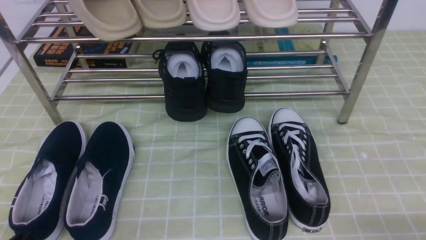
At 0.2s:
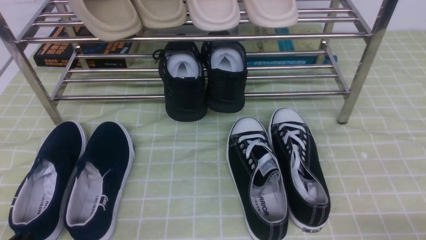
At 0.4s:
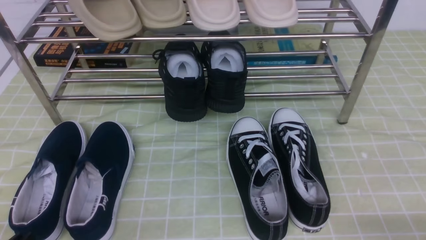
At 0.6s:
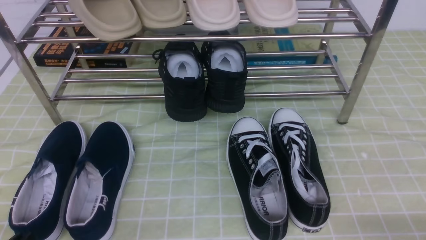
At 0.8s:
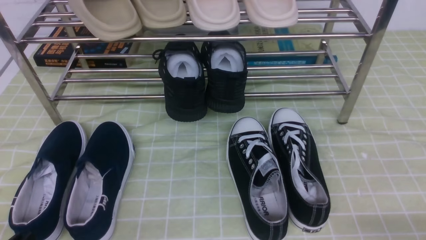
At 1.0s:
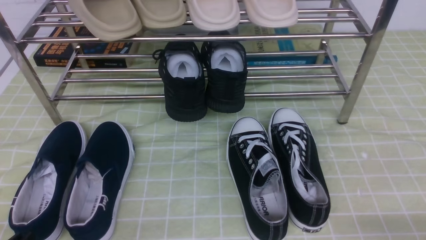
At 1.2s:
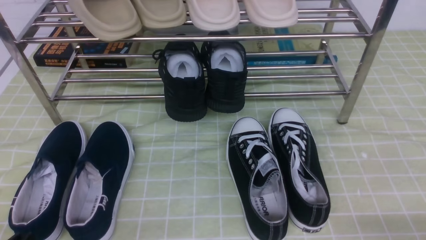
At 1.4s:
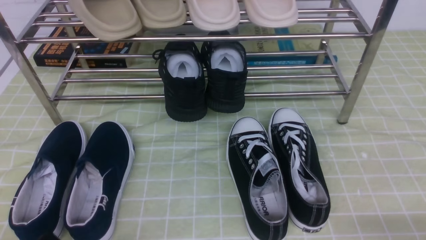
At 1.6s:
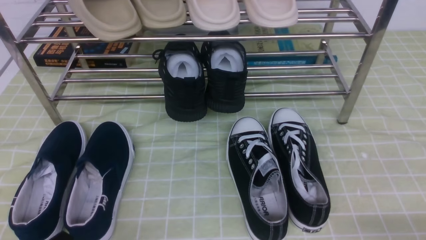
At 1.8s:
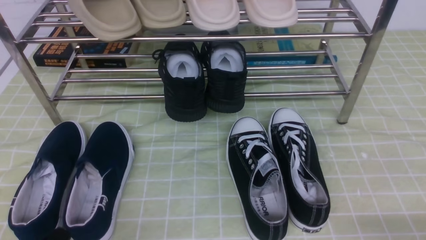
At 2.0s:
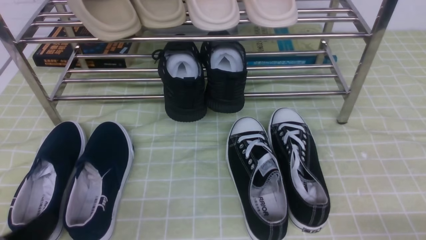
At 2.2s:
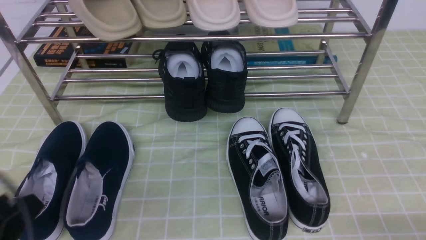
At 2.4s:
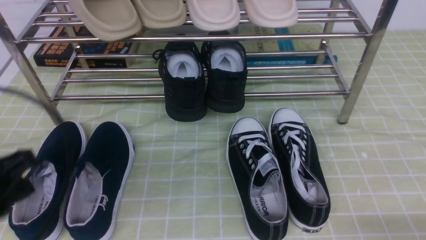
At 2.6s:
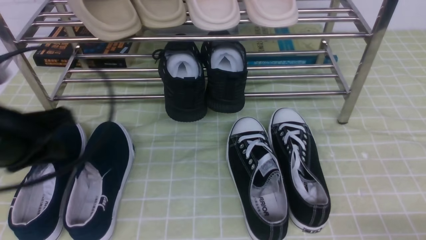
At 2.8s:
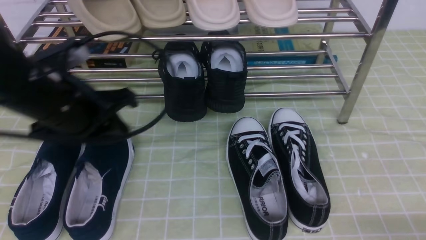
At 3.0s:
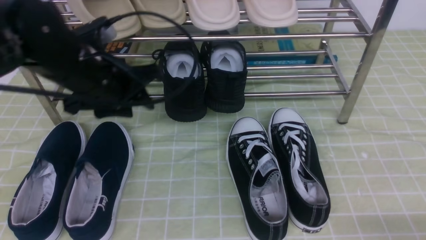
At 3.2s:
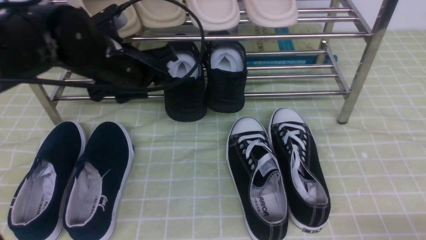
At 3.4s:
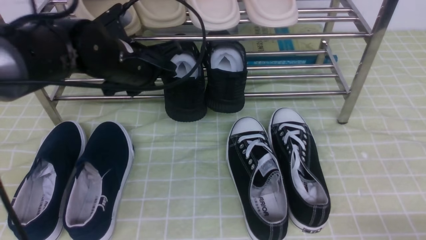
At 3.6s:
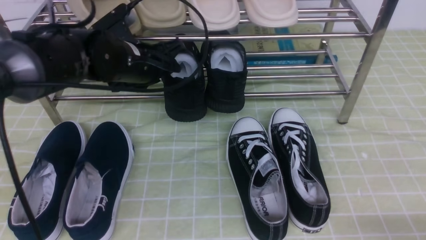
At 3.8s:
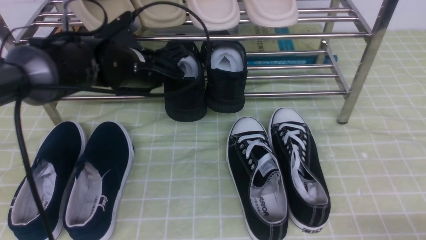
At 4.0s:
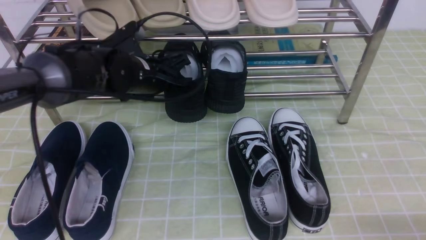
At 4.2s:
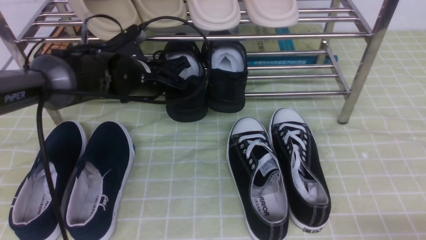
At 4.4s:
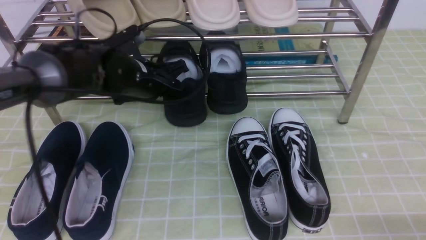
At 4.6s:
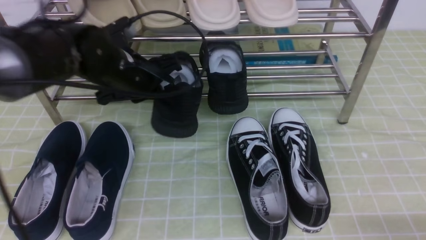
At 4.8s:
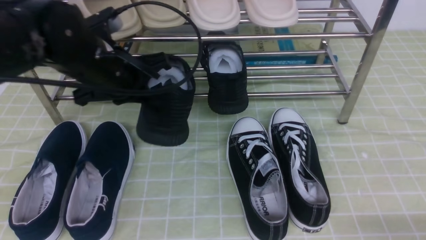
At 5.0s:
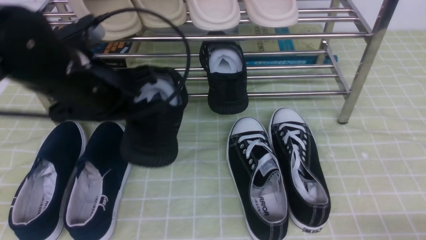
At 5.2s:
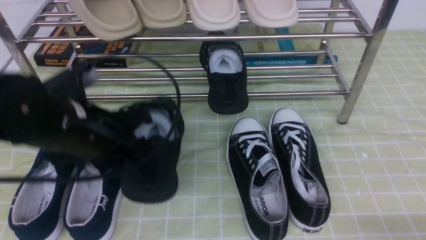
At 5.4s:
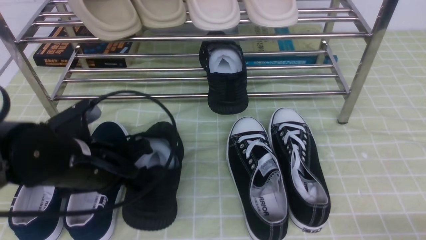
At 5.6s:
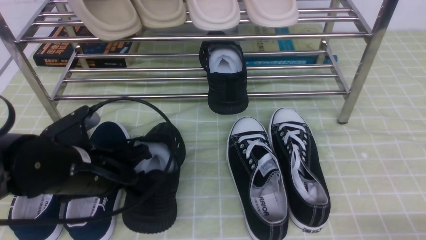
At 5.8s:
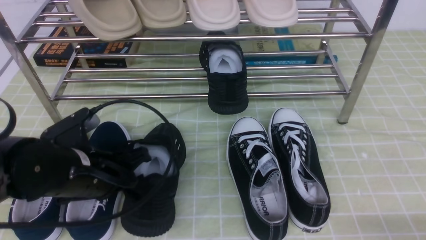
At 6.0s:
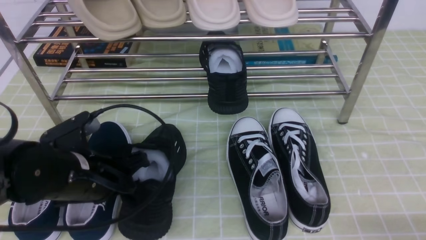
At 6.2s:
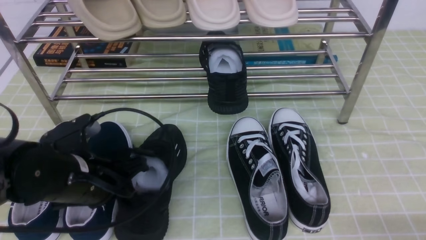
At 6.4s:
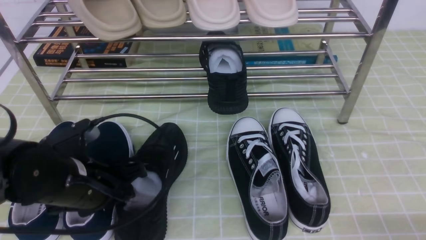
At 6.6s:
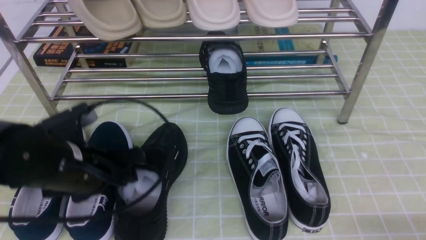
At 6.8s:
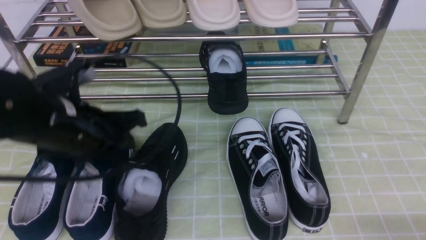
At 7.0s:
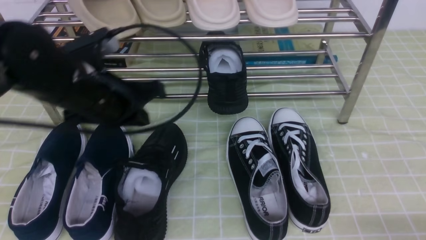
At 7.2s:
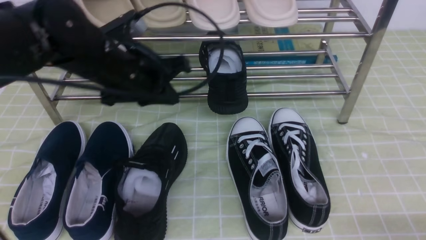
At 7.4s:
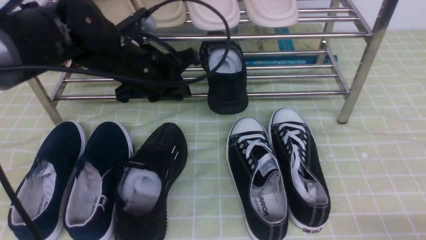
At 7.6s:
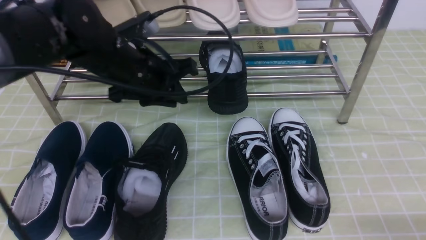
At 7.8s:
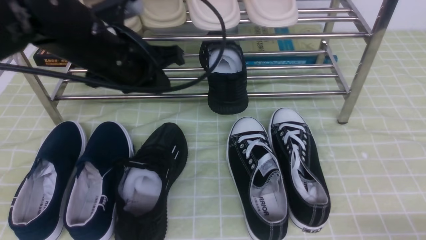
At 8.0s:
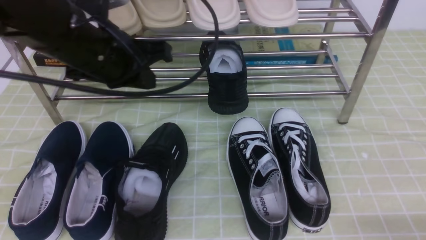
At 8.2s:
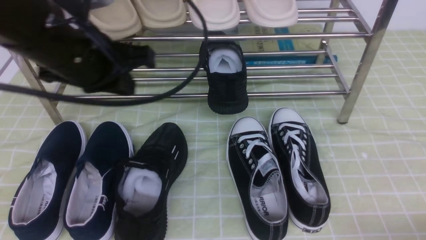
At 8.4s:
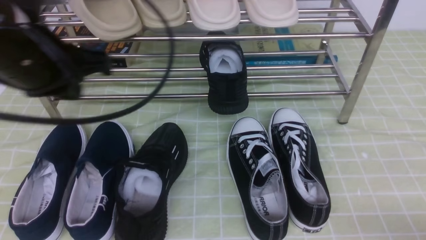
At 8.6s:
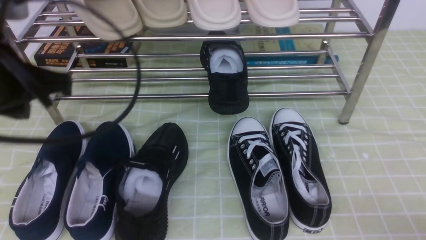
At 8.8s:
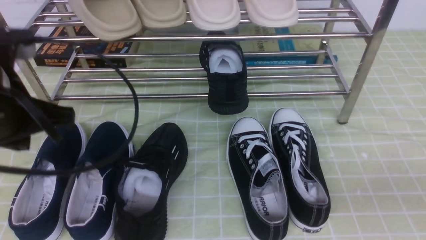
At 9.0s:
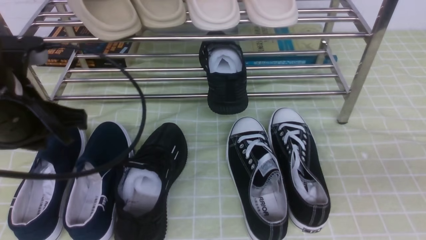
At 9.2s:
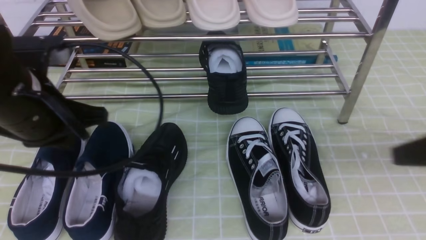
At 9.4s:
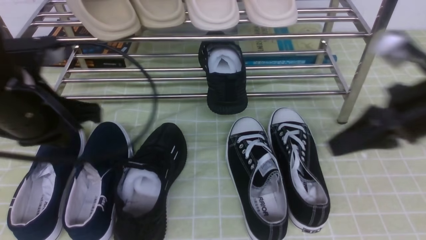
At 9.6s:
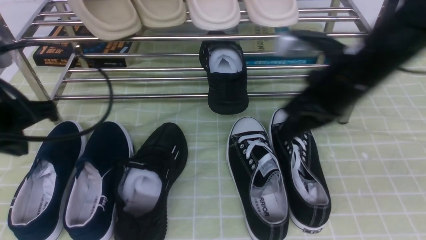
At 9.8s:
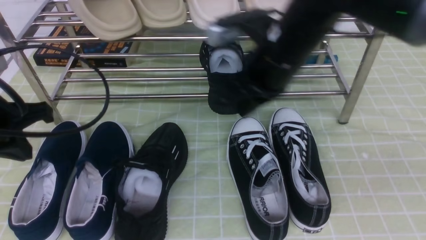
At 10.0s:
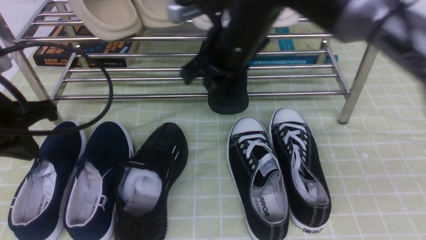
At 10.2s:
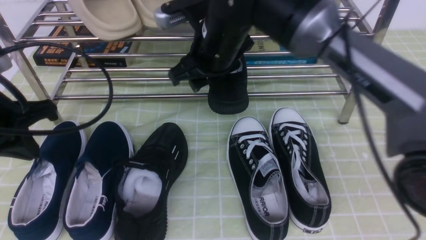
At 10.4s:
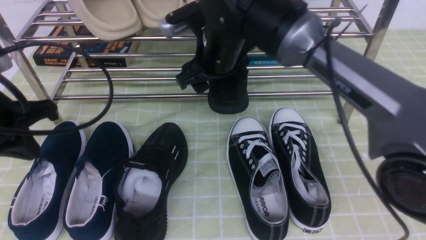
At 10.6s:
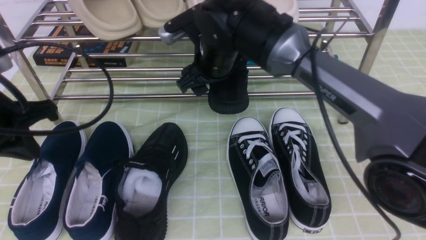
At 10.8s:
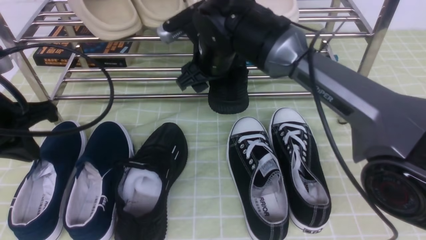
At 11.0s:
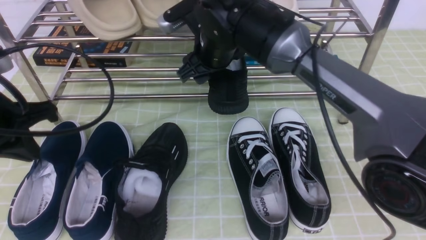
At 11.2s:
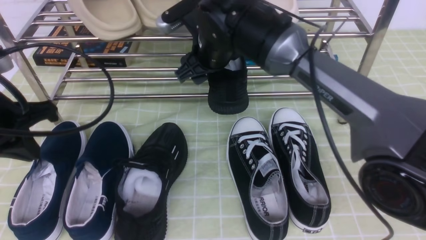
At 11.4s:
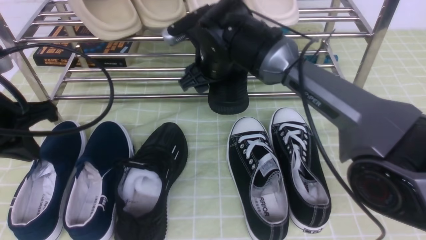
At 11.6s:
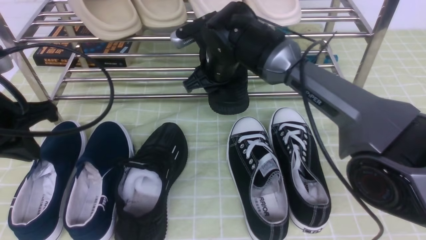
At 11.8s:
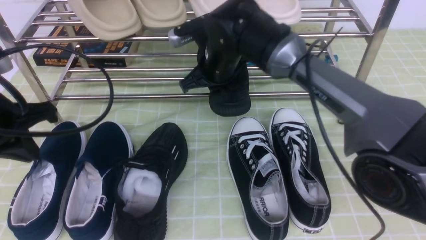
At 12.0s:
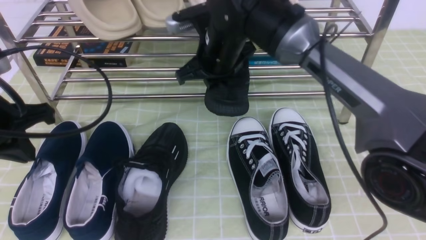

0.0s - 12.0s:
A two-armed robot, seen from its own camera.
Step, 0.0s - 4.0s: use the left arm to clamp a shoe in the middle of the shoe rack.
Step, 4.2s - 6.8s: Use your left arm to remove the clamped shoe from the shoe rack and put it down.
Step, 7.0s - 11.8s: use the right arm to clamp a shoe in the middle of the shoe rack.
1.6s - 3.0s: The left gripper shifts roughly 30 cm forward and upward, and opens.
3.0s - 4.4s: The left gripper shifts some 10 cm forward and downward, and closes its fingers.
4.4s - 6.0s: The left gripper moves backward, about 15 cm.
6.0s - 7.6s: The left gripper heads upward, forward and to the right, covering about 15 cm, and opens and closes again.
7.6s - 9.0s: The right gripper travels upward by approximately 15 cm, and closes its fingers. Meanwhile the left gripper goes approximately 15 cm backward and to the left.
9.0s - 10.4s: The right gripper heads to the left and forward, covering some 40 cm, and opens up, while the left gripper heads to the left, covering some 5 cm.
10.4s - 12.0s: The right gripper closes.

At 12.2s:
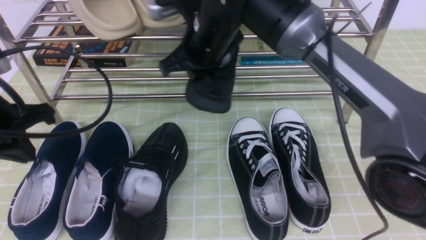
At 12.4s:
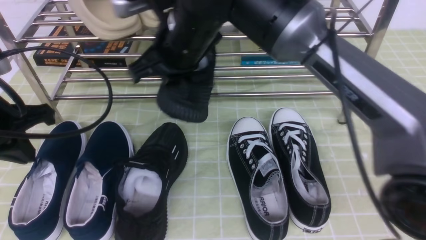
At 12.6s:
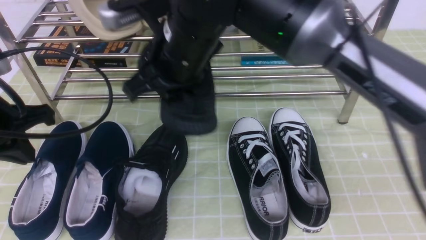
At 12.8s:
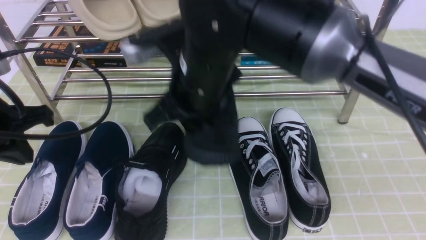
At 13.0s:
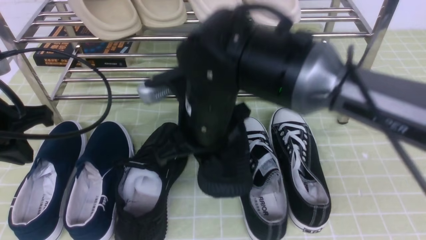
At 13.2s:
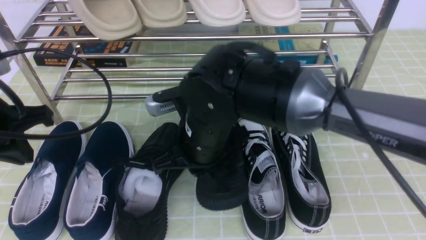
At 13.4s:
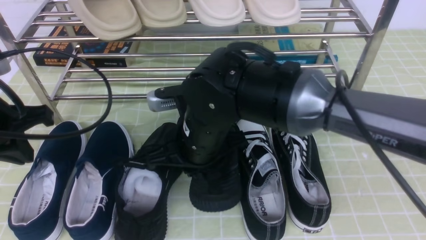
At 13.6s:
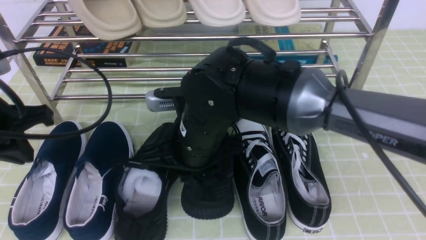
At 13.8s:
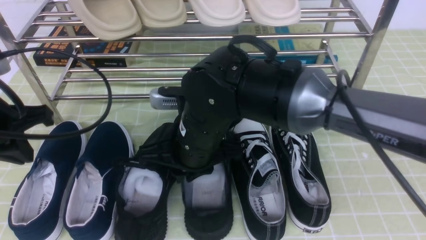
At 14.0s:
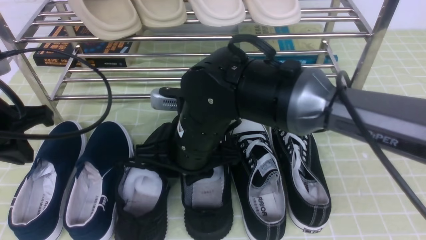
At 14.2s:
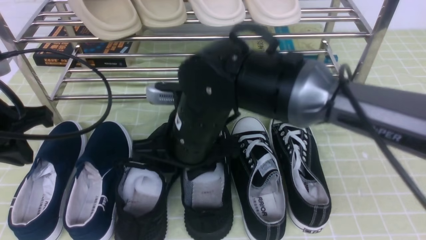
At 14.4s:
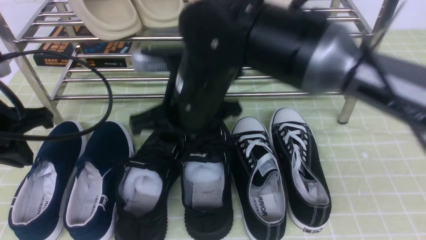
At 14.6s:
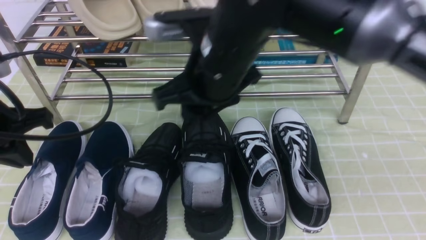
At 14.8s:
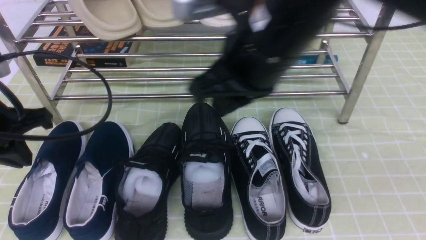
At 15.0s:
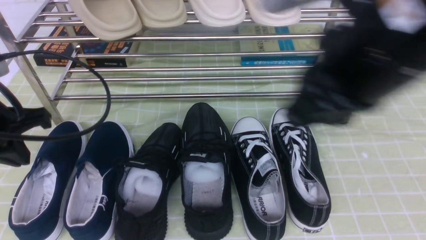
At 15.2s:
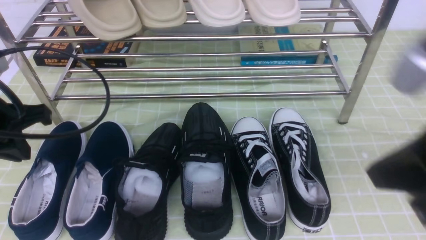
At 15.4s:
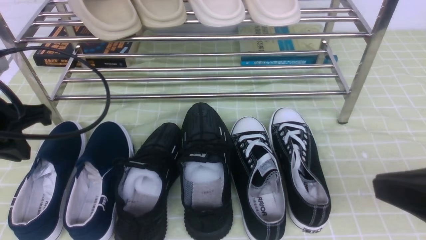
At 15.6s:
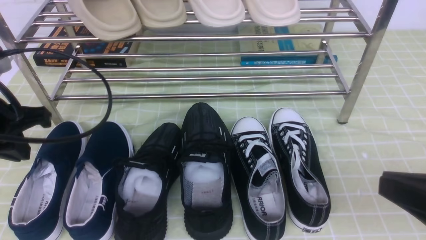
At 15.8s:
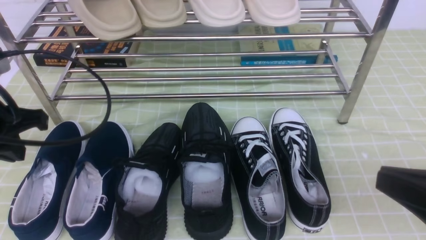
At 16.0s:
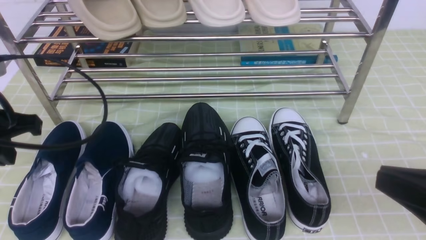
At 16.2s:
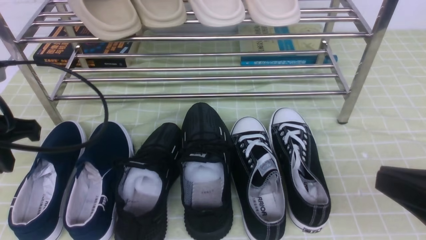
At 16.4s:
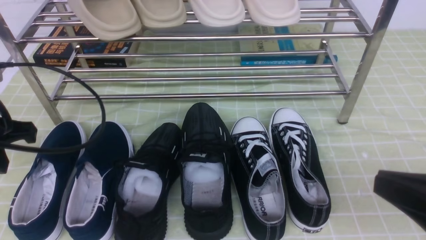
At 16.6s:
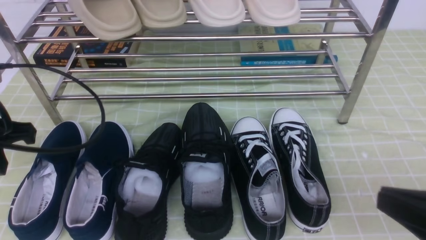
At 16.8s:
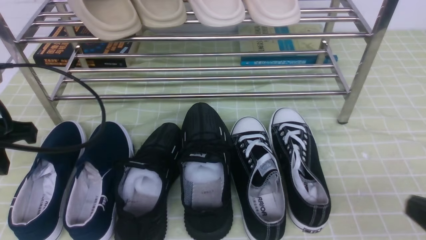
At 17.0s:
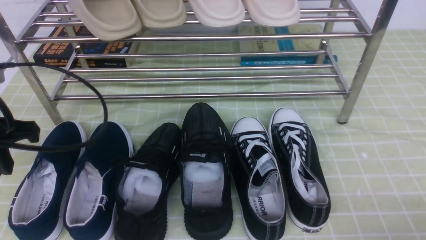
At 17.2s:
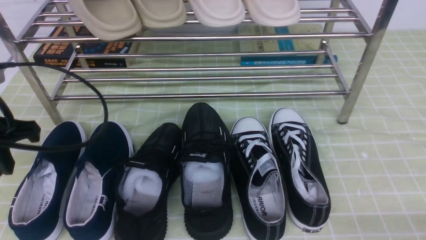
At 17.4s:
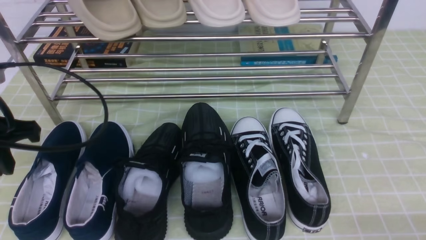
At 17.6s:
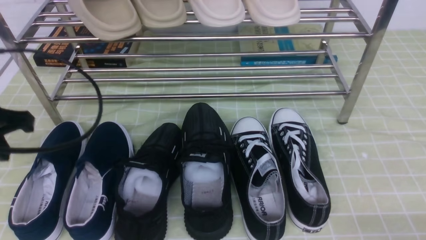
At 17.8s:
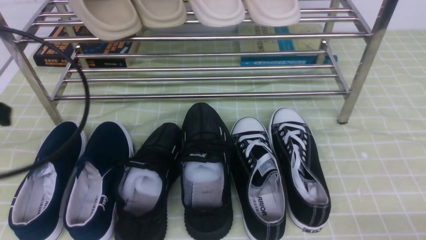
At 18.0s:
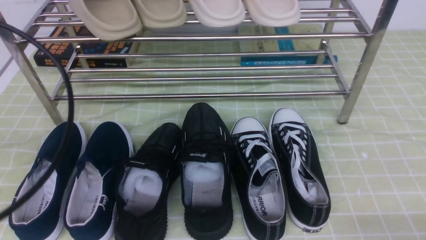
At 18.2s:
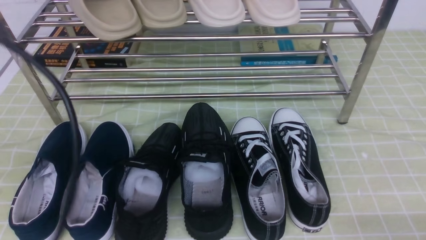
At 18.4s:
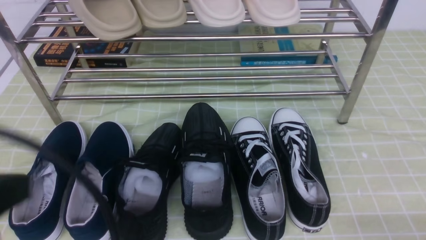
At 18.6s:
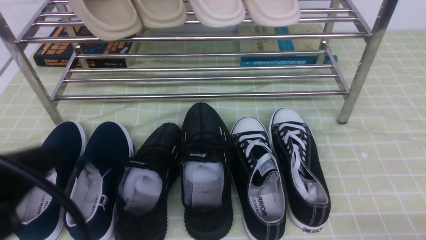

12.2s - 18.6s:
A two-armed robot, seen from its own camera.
Step, 12.2s - 14.2s: use the right arm to take out the clamped shoe from the shoe rack and put it down.
12.2s - 13.8s: The right gripper travels backward and downward by approximately 15 cm.
13.8s - 15.4s: The right gripper shifts about 30 cm to the right and backward.
15.4s - 17.0s: The right gripper shifts approximately 15 cm downward and to the right.
17.0s - 18.6s: The left gripper goes about 15 cm backward.
